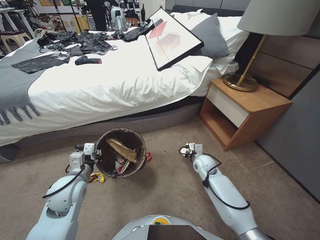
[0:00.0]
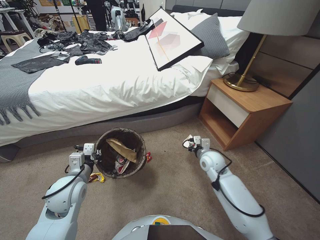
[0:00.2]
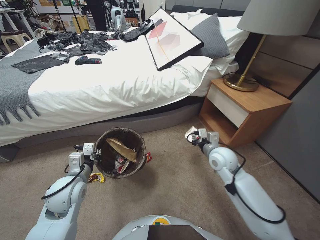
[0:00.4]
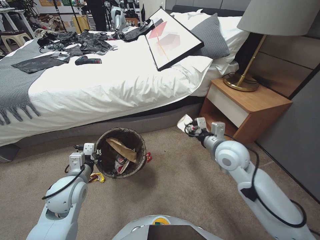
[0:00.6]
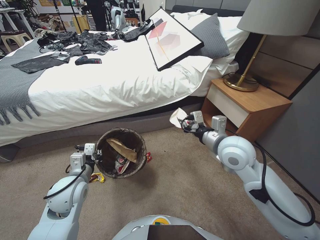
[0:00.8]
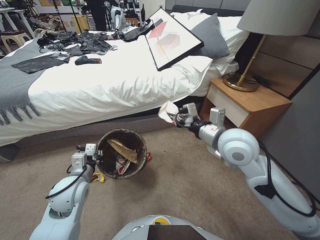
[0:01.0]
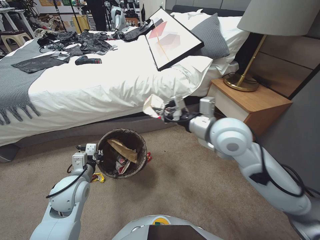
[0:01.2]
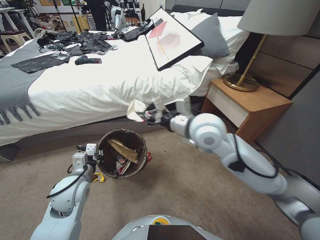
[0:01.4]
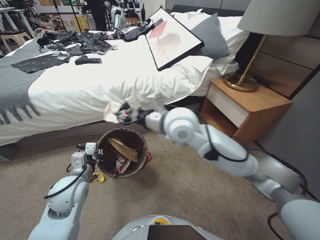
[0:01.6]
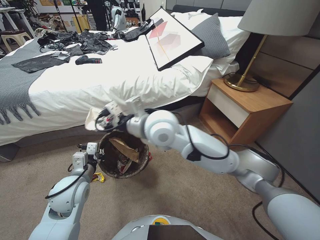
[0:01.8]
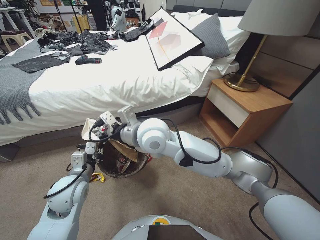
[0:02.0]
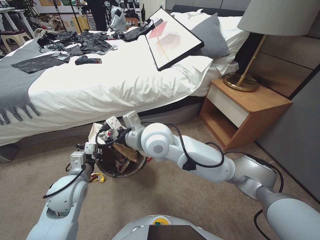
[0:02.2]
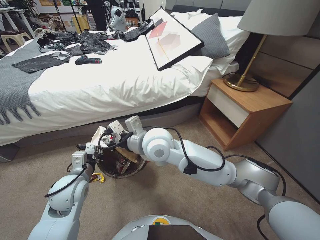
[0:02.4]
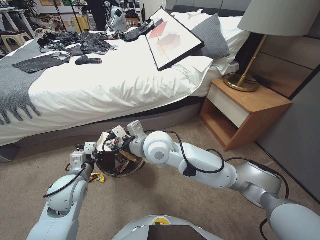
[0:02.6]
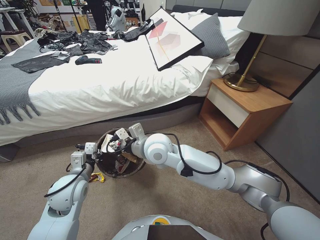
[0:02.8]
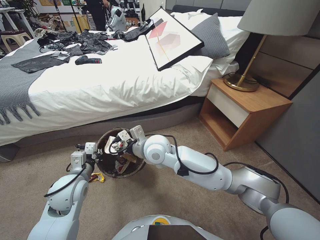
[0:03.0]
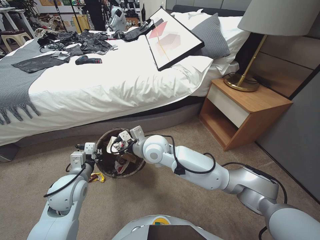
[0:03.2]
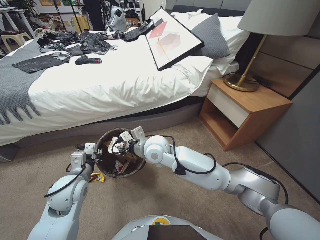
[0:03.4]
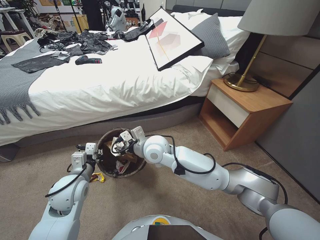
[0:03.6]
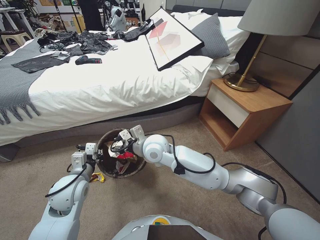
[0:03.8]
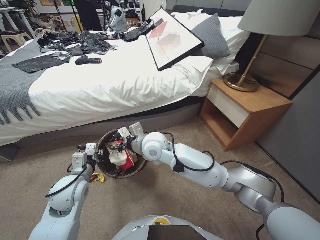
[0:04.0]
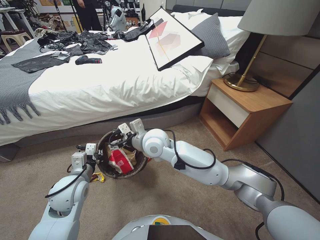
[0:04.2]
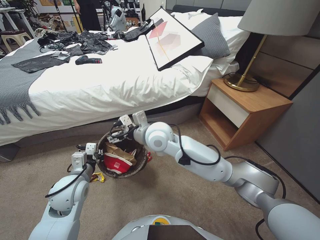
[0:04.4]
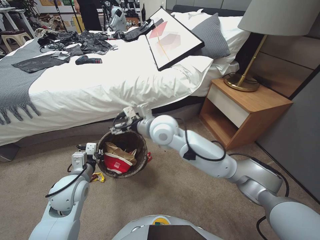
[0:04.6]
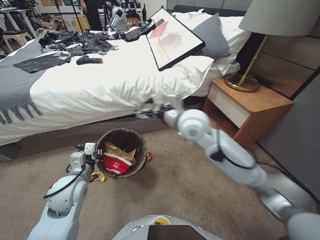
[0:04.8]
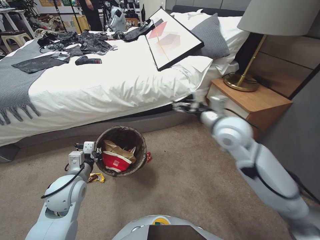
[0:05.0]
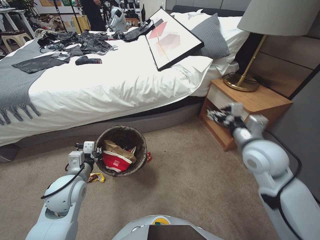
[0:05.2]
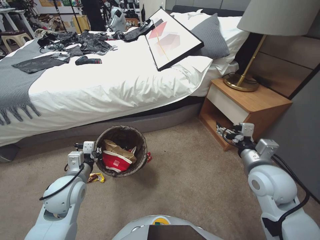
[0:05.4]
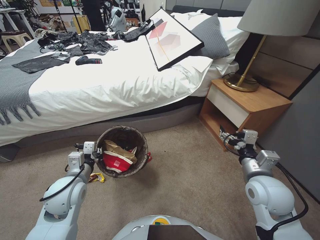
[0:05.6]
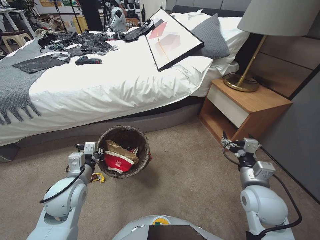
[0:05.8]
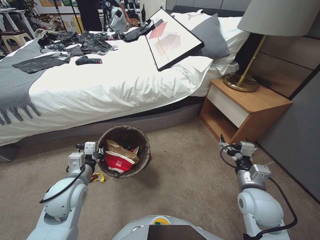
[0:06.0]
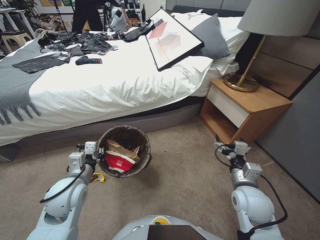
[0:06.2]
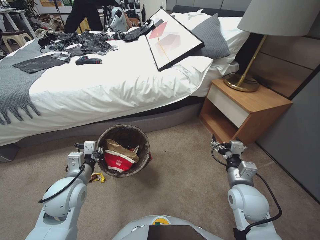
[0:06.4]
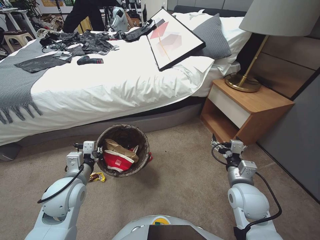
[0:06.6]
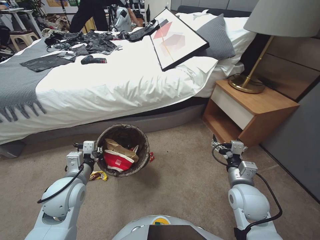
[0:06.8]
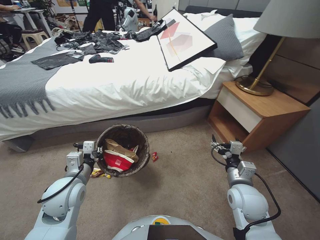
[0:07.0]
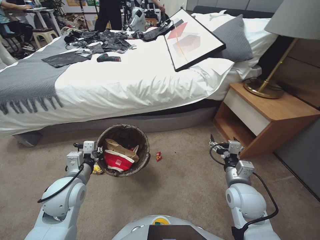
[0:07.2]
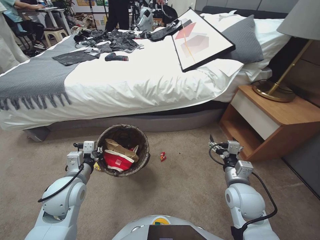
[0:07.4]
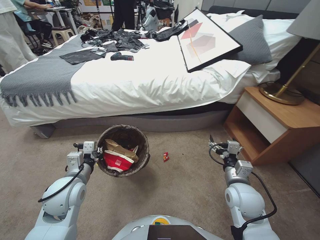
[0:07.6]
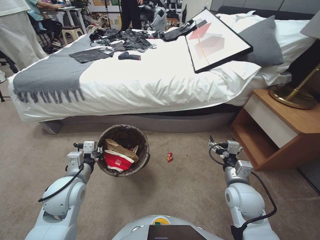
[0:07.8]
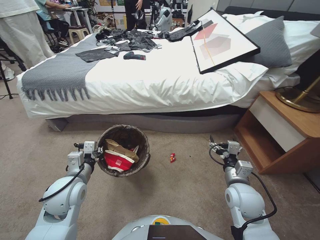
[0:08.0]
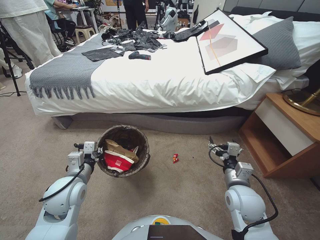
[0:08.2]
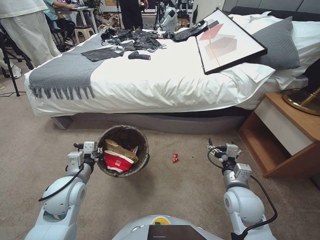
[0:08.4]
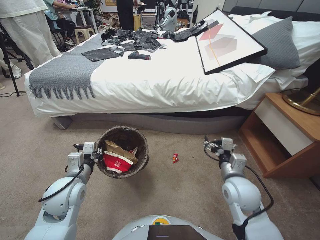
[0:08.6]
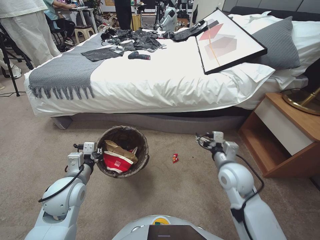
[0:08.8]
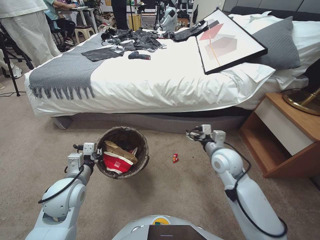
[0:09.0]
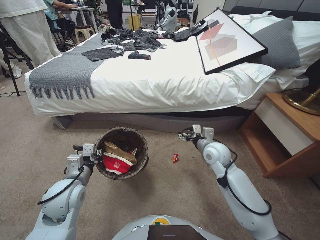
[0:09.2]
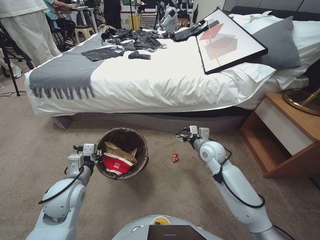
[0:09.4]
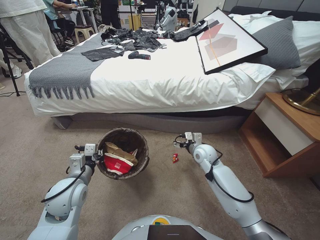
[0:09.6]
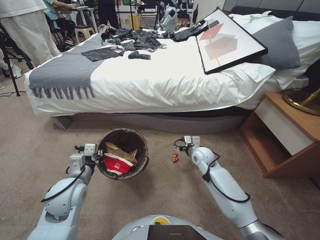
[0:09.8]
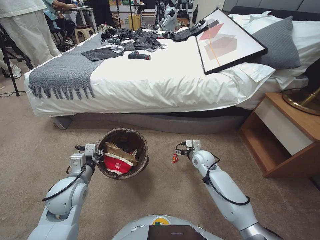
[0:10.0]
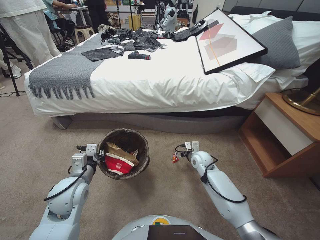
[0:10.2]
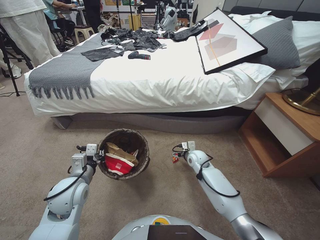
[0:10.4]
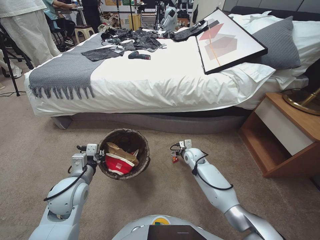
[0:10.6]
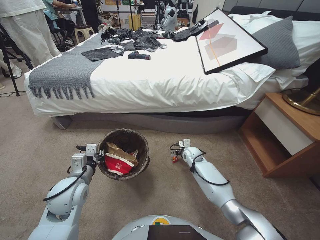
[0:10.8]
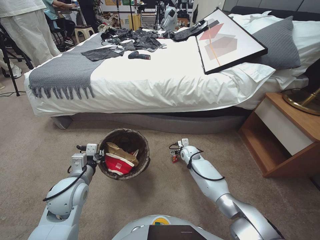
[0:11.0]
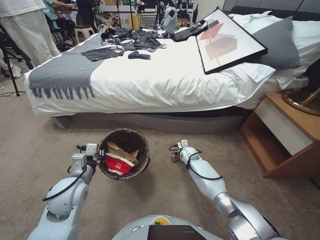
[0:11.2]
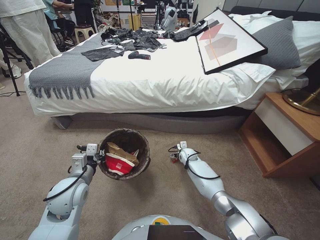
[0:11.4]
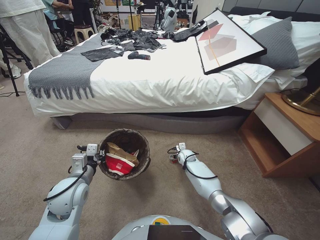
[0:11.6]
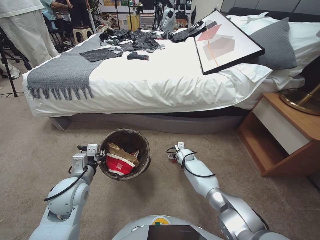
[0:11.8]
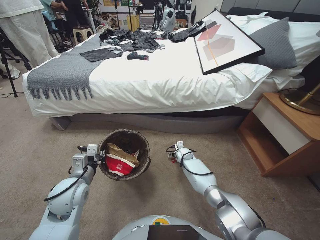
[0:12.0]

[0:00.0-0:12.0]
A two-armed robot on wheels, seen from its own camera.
Task of the whole recording: Pick up the trash bin, then pick up the garbage from the floor and place it into the trash bin.
0:00.0 to 0:01.6: The right gripper travels upward and to the left by some 35 cm.
0:01.6 to 0:03.0: The right gripper heads downward and to the left, covering about 15 cm.
0:03.0 to 0:04.4: The right gripper opens up.
0:04.4 to 0:06.0: The right gripper travels to the right and backward by about 35 cm.
0:07.6 to 0:09.0: The right gripper heads forward, covering approximately 10 cm.
0:09.0 to 0:10.4: The right gripper goes some 20 cm downward and forward.
0:10.4 to 0:12.0: The right gripper goes about 10 cm downward and forward.

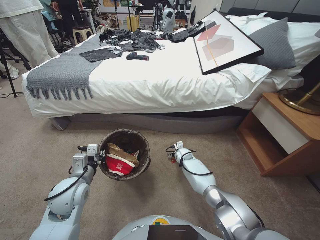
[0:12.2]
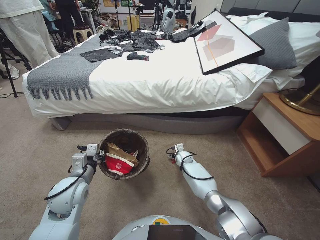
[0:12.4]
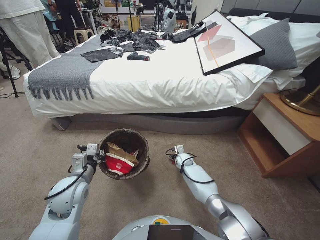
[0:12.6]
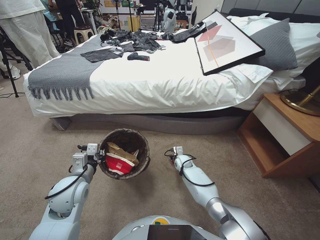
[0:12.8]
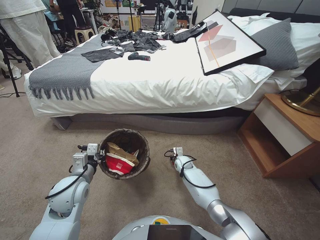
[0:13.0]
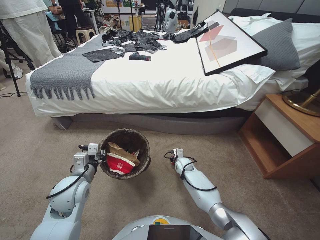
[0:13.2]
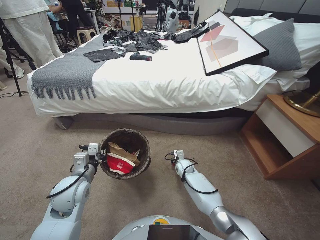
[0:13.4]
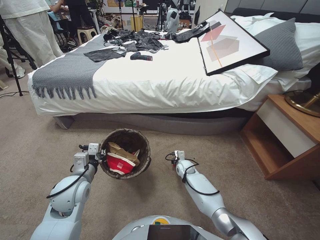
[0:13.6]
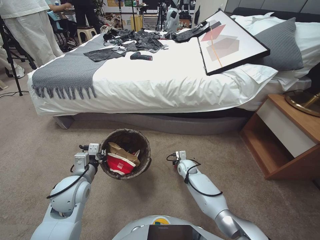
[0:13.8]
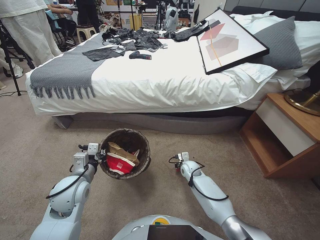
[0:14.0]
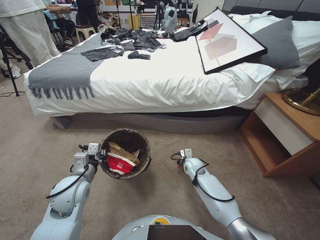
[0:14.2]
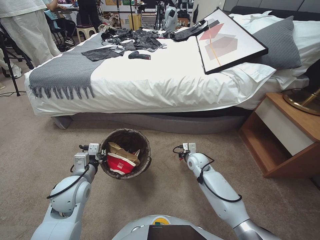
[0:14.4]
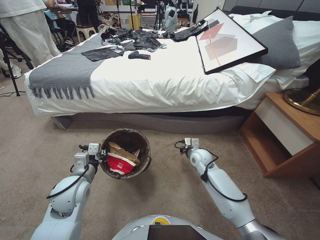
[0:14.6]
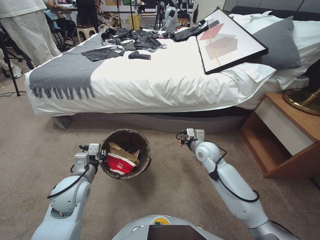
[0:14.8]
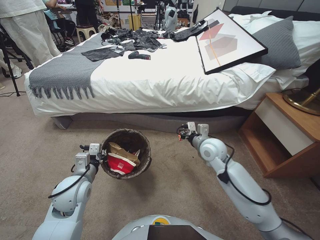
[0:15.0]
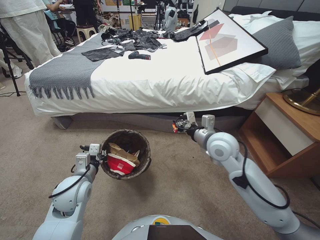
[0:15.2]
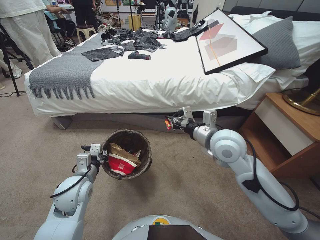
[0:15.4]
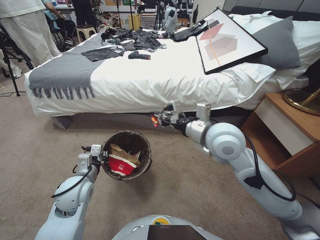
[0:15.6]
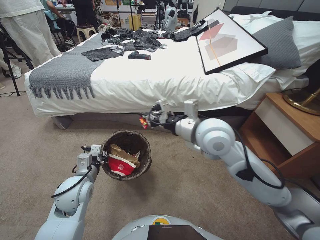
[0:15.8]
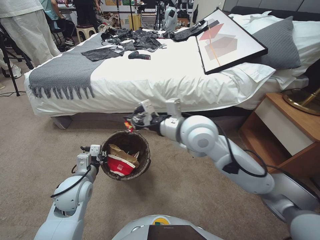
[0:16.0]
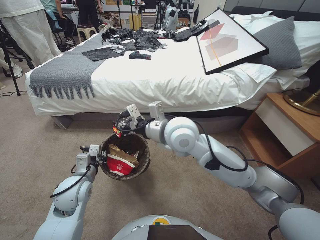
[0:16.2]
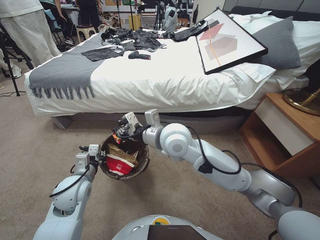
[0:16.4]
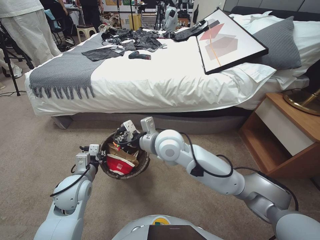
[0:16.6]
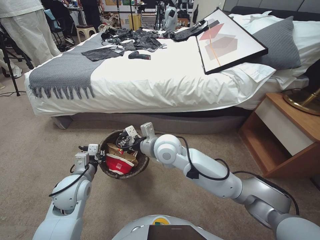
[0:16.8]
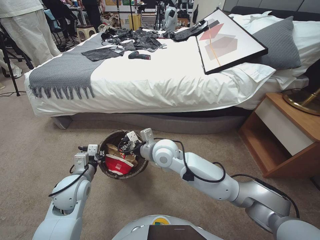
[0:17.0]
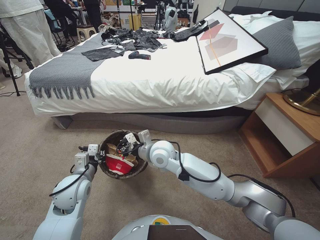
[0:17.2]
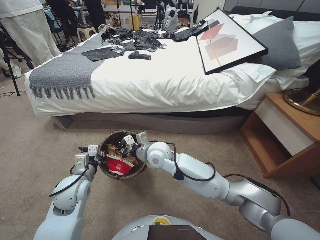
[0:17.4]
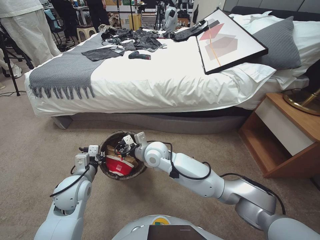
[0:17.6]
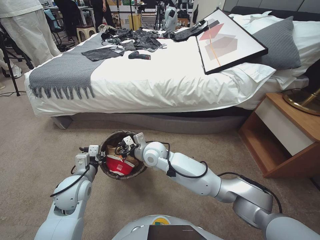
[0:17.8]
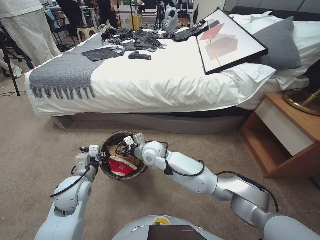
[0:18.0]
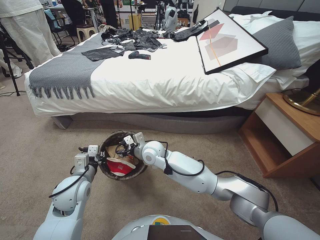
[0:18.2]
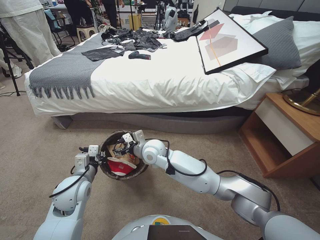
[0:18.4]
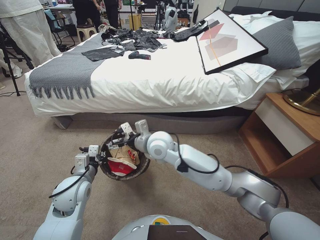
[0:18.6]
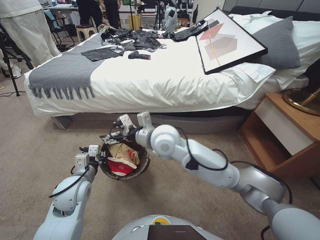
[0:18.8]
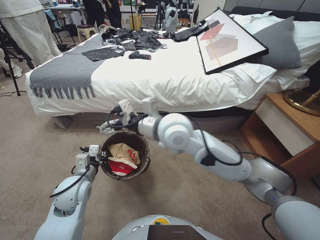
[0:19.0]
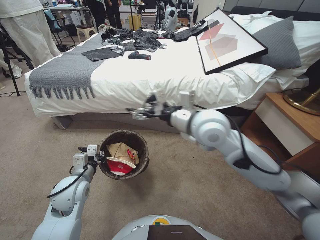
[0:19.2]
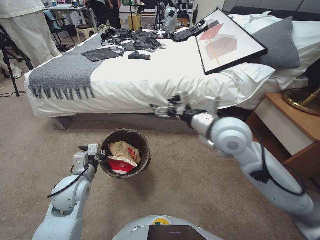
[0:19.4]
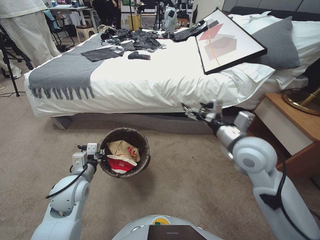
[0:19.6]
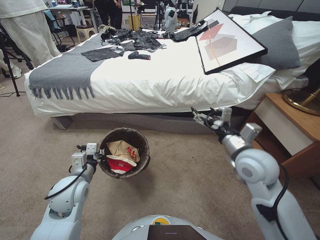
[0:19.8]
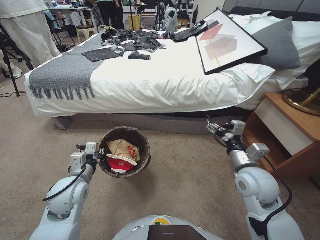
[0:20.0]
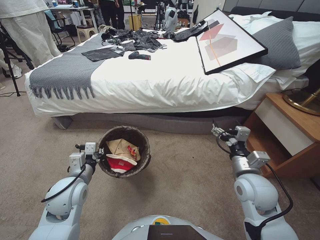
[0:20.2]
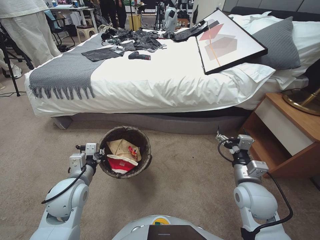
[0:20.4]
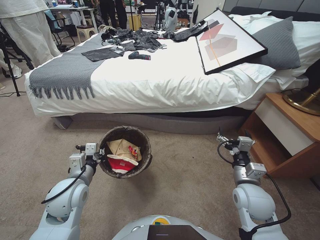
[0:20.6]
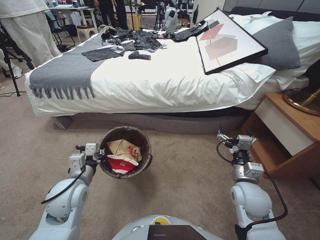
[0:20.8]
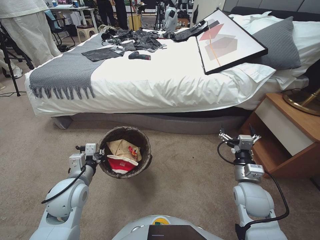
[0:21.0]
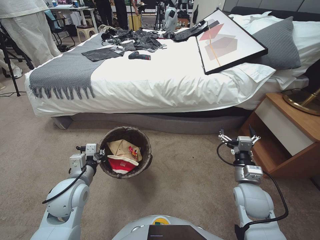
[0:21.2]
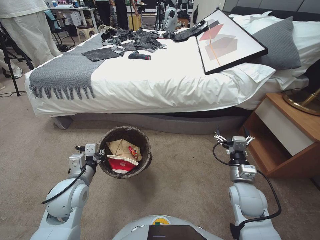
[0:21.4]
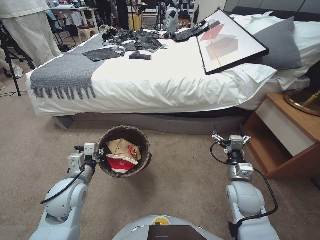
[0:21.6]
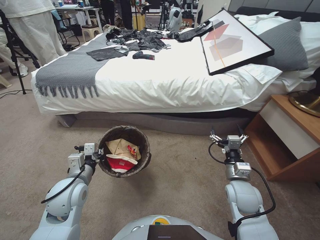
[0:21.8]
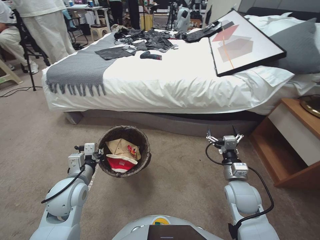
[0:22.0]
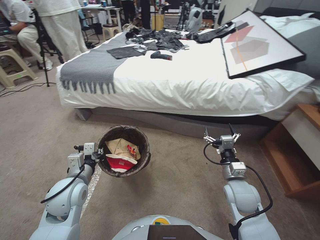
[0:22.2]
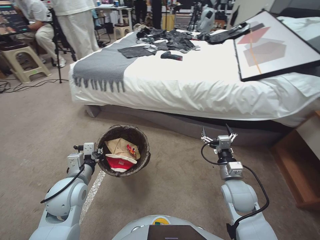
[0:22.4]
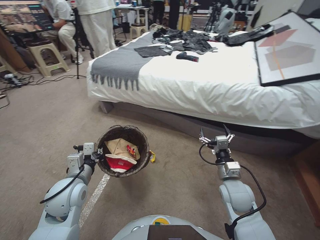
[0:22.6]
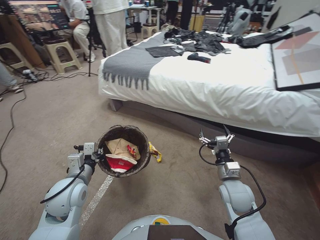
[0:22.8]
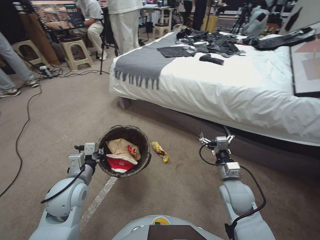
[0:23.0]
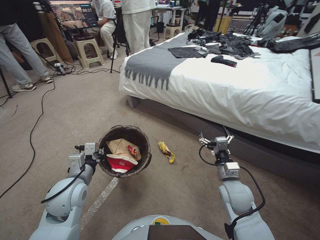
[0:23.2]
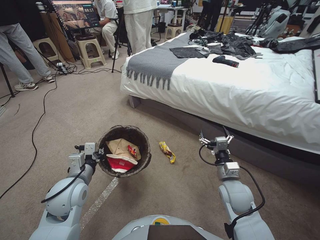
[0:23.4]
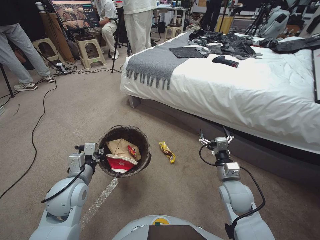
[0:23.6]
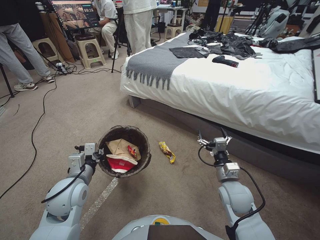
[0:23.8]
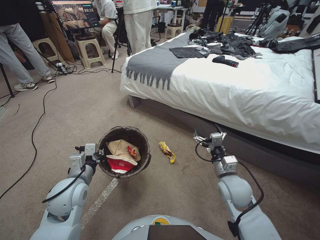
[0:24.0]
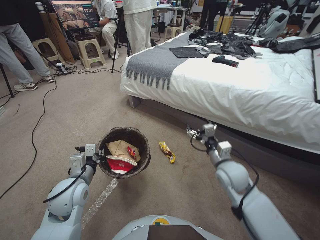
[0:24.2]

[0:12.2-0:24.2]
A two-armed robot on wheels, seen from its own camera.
Task of the whole recording: Pick up the trash bin, then pick up the garbage from the floor and place it into the trash bin.
0:12.2 to 0:13.8: The right gripper heads backward, covering roughly 10 cm, and closes.
0:13.8 to 0:15.2: The right gripper is displaced upward by roughly 30 cm.
0:15.2 to 0:16.6: The right gripper heads to the left, covering roughly 20 cm.
0:16.6 to 0:18.2: The right gripper heads downward, covering about 15 cm, and opens up.
0:18.2 to 0:19.8: The right gripper moves to the right, upward and backward, roughly 35 cm, and opens.
0:19.8 to 0:21.2: The right gripper goes some 15 cm downward.
